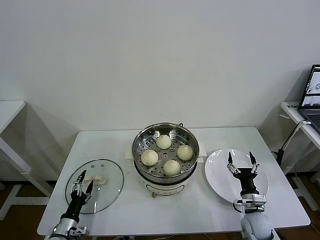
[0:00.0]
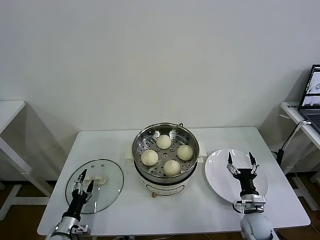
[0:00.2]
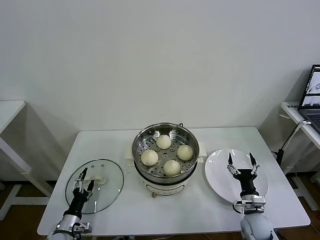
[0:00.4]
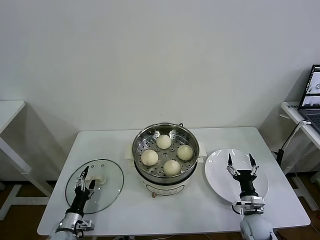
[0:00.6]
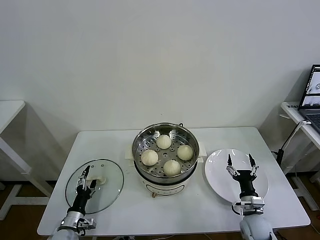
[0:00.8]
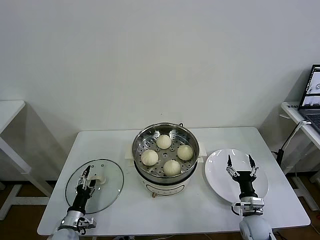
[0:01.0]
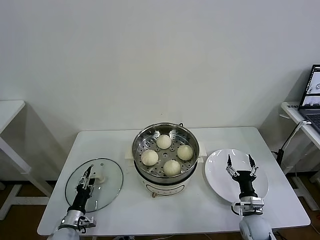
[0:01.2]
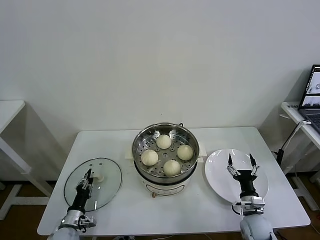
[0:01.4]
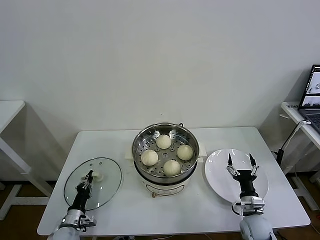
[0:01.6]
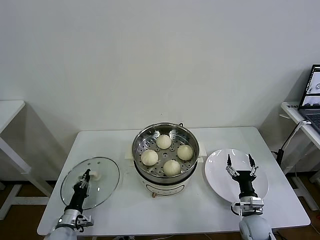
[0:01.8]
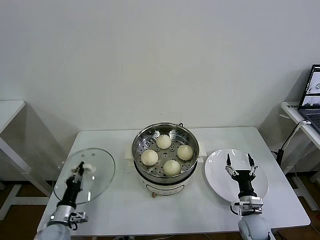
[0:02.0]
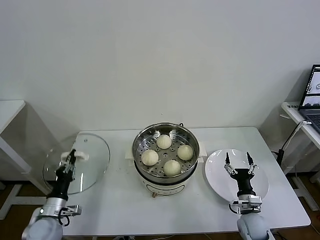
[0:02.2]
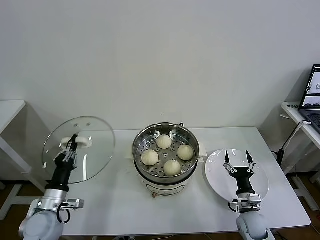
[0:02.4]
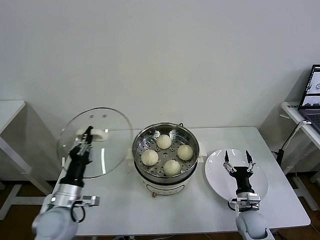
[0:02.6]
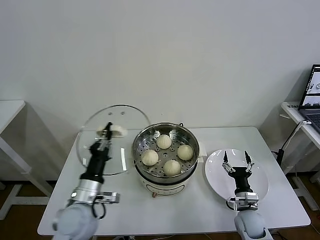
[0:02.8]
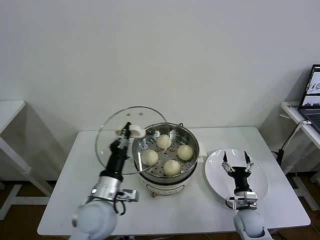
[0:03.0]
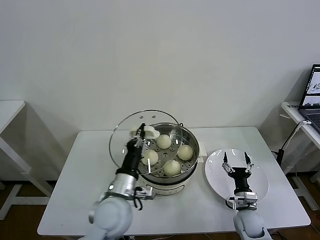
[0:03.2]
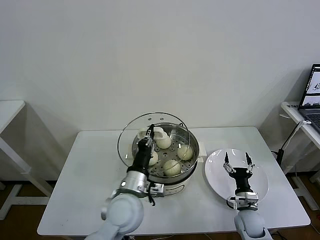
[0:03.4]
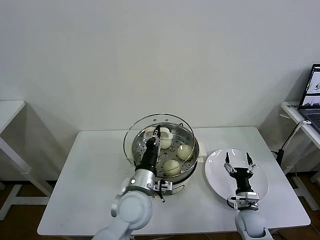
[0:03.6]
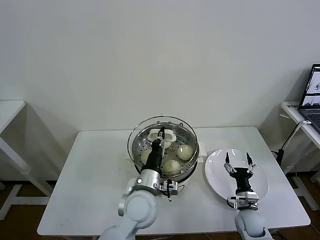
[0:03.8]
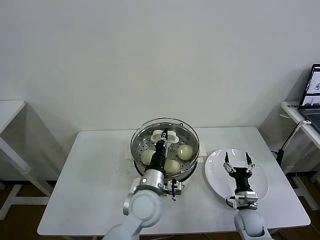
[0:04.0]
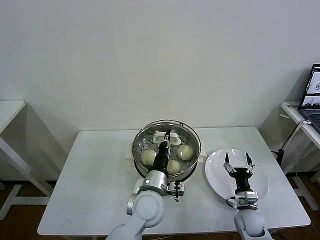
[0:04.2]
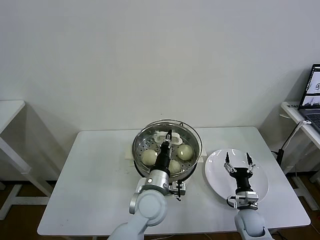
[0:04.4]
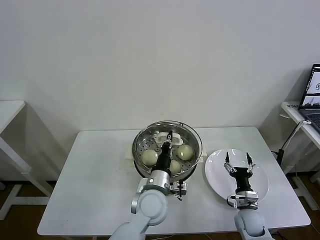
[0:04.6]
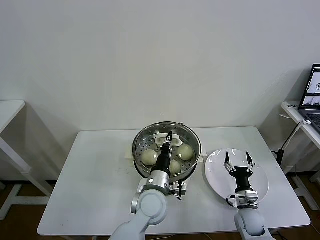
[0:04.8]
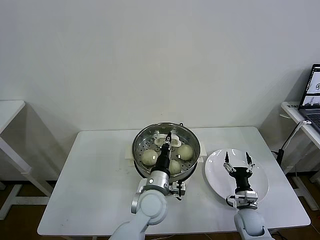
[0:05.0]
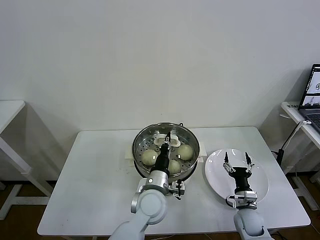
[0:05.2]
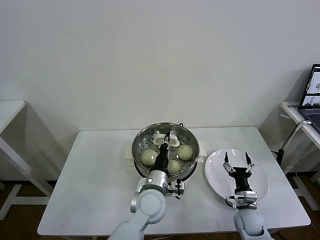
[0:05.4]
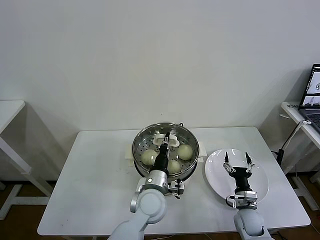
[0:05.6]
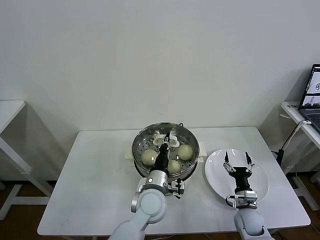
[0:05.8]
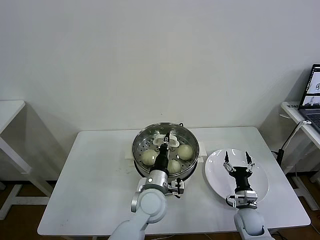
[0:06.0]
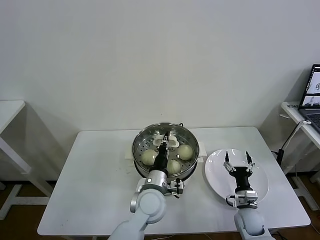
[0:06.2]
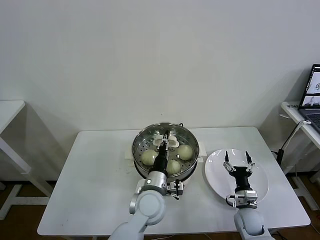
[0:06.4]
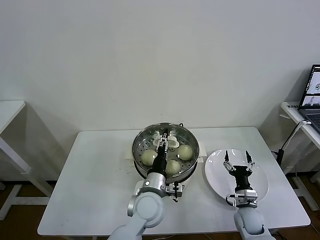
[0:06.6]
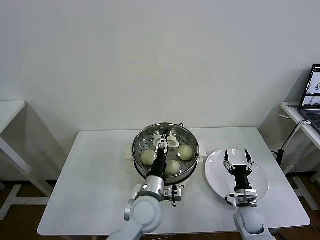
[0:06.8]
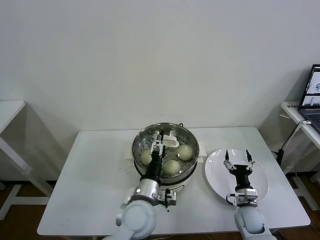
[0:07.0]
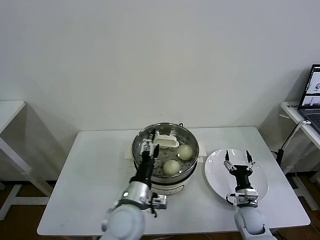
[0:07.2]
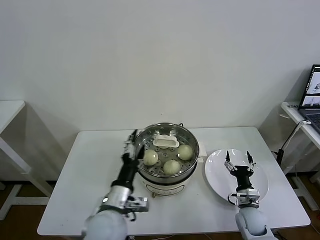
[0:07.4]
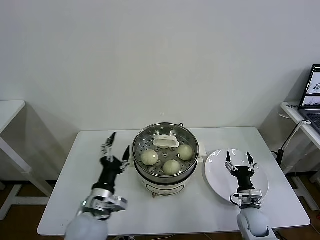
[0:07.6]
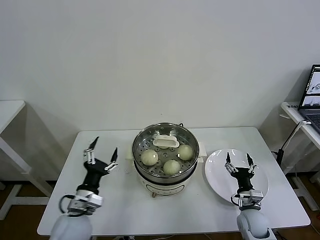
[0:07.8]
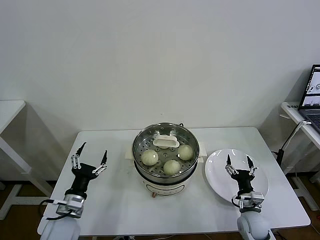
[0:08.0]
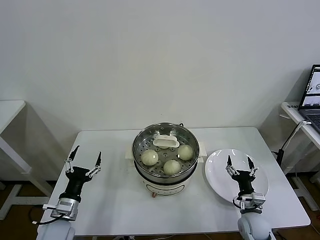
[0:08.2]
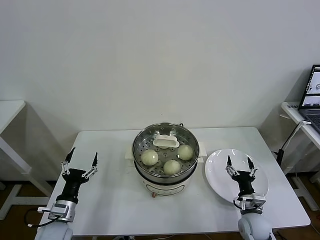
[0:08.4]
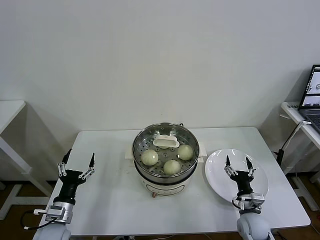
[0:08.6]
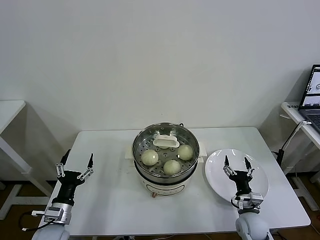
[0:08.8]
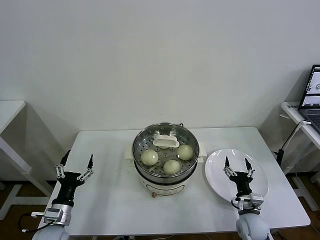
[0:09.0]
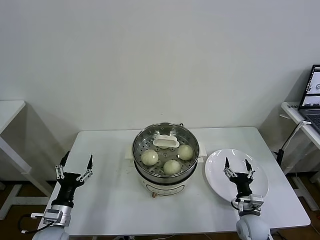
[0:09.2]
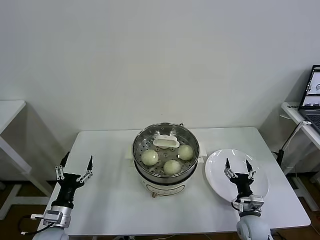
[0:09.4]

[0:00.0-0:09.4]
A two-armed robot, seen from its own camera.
Task of the whole recording: take steamed baozi put them in steamer then cover it.
Step, 0:01.8 to 0:06.2: Place the pot lid on the steamer with left gripper.
0:00.0 to 0:01.6: The left gripper closes up.
0:01.6 to 0:03.2: The left gripper shifts some 30 cm upward and to the right.
0:03.2 to 0:04.8: The left gripper shifts approximately 10 cm to the right.
0:04.8 to 0:06.2: Neither gripper changes place.
0:06.2 to 0:07.8: The left gripper travels to the left by roughly 20 cm, and opens up.
0:07.8 to 0:09.4: The left gripper goes roughly 15 cm to the left and downward.
